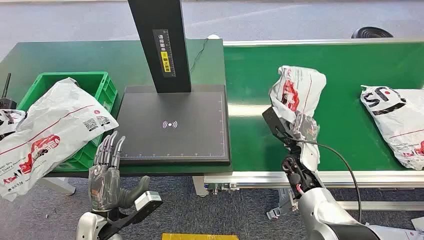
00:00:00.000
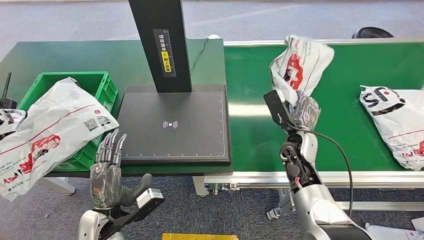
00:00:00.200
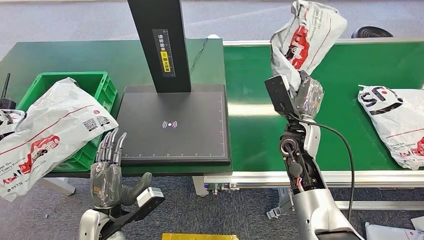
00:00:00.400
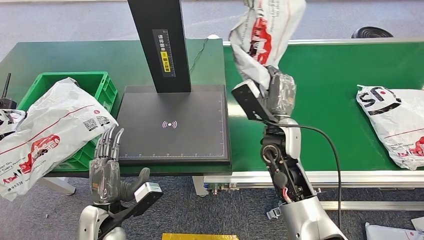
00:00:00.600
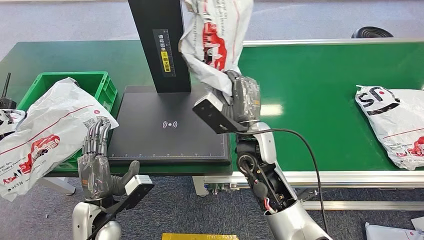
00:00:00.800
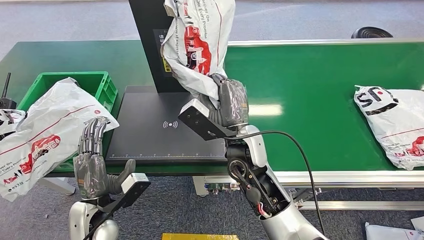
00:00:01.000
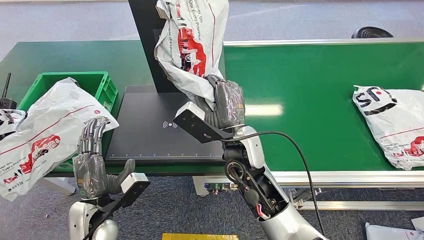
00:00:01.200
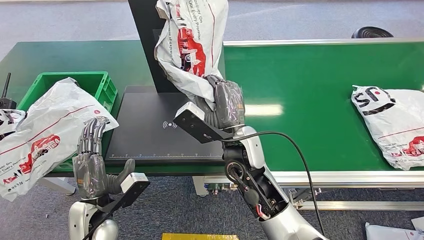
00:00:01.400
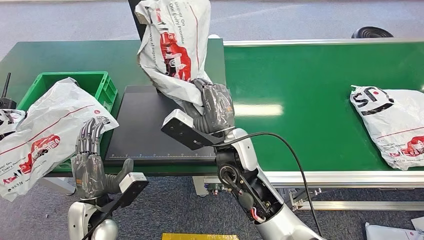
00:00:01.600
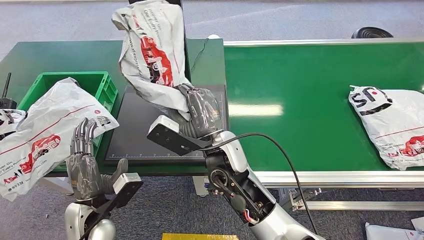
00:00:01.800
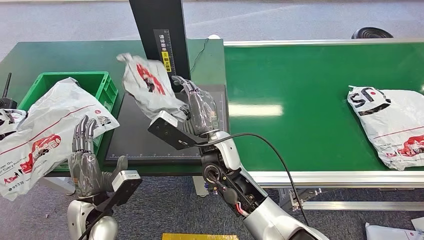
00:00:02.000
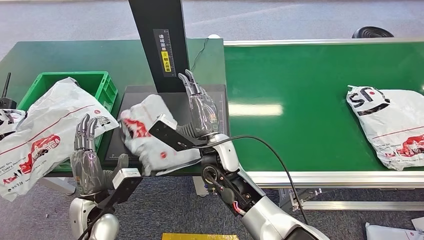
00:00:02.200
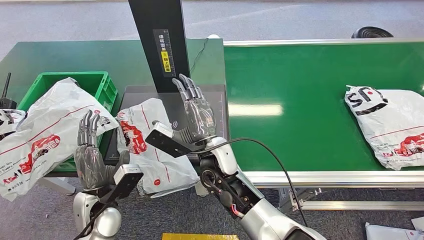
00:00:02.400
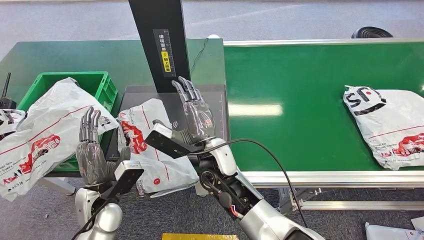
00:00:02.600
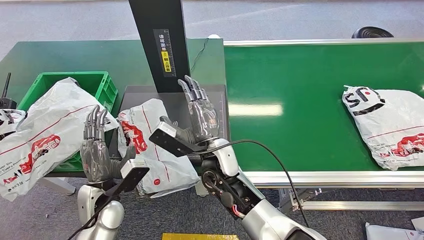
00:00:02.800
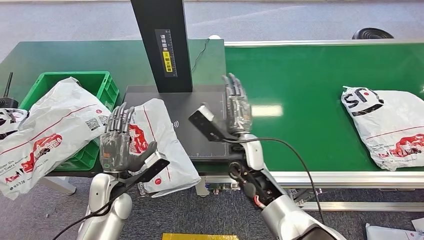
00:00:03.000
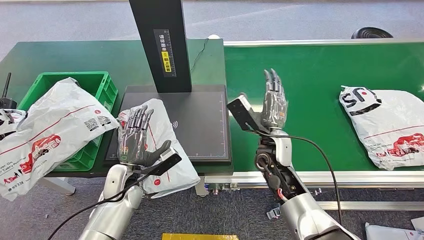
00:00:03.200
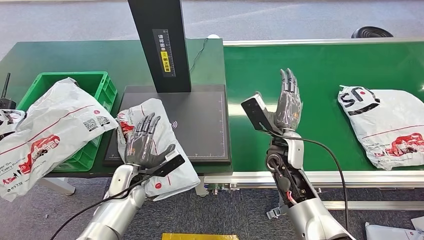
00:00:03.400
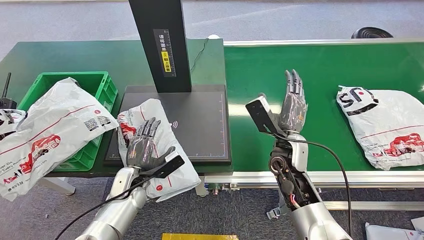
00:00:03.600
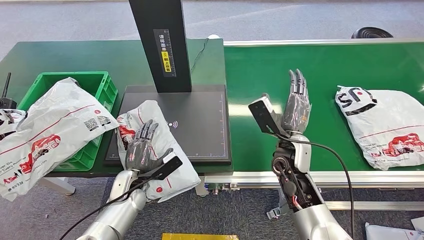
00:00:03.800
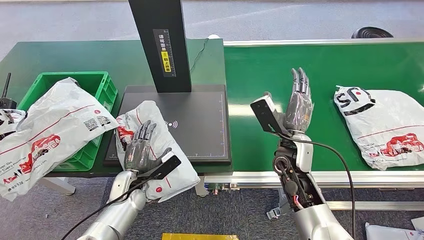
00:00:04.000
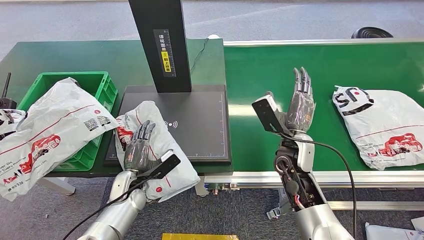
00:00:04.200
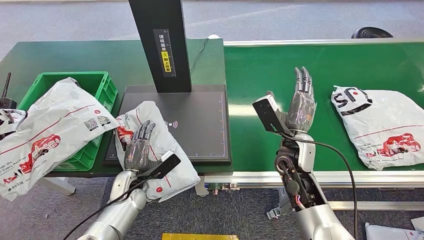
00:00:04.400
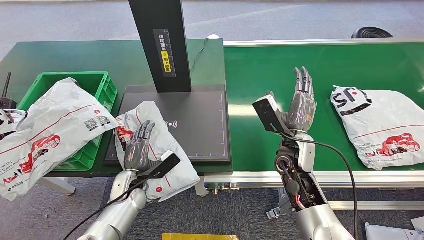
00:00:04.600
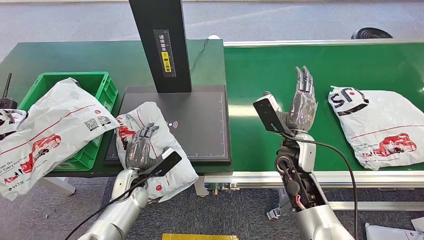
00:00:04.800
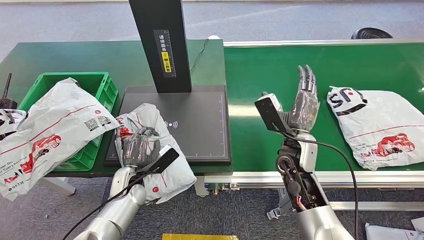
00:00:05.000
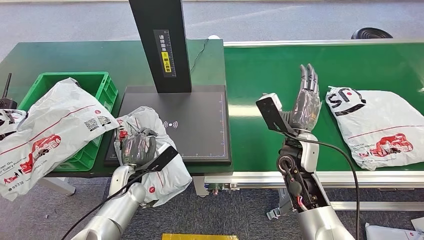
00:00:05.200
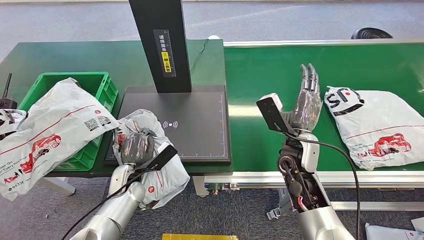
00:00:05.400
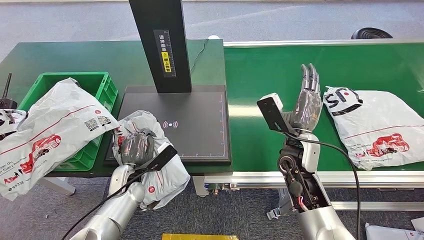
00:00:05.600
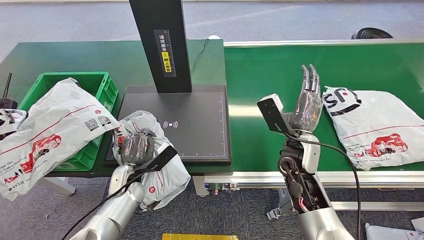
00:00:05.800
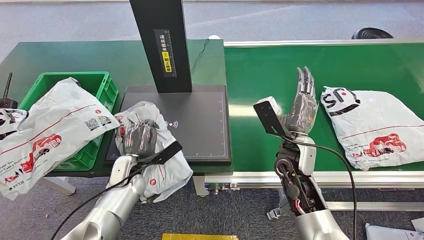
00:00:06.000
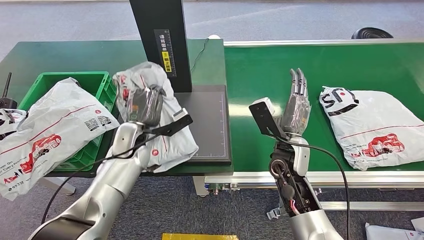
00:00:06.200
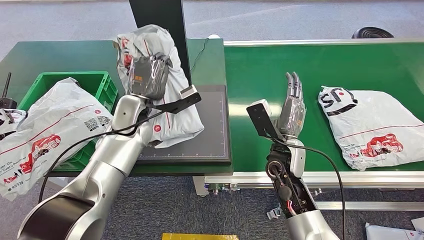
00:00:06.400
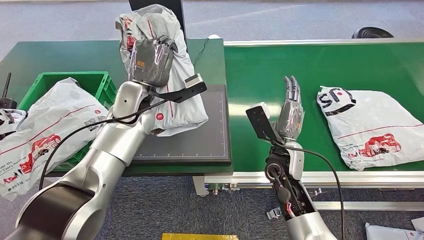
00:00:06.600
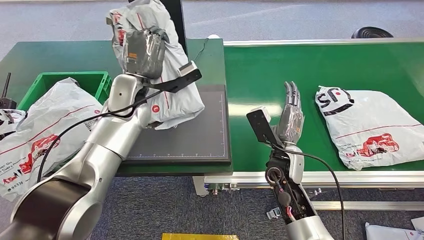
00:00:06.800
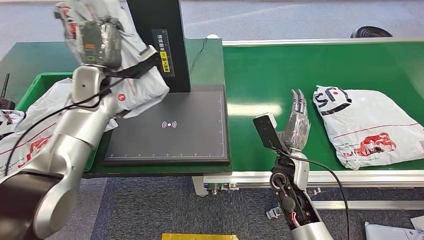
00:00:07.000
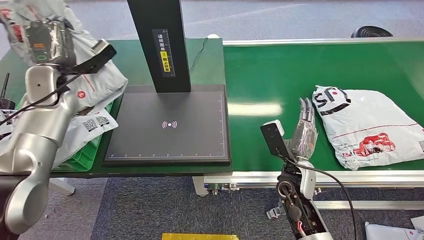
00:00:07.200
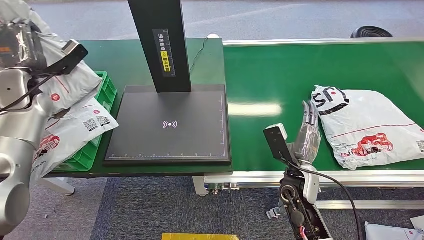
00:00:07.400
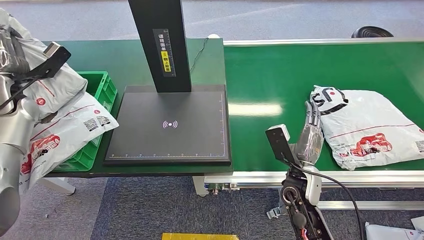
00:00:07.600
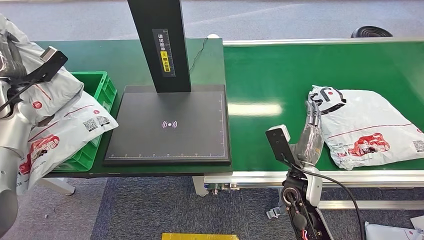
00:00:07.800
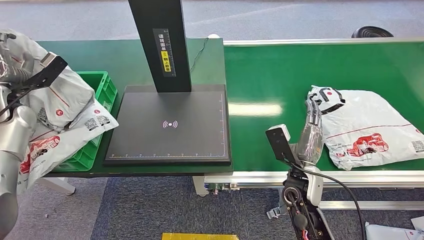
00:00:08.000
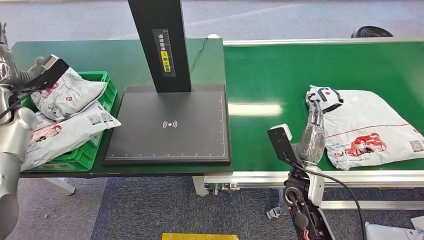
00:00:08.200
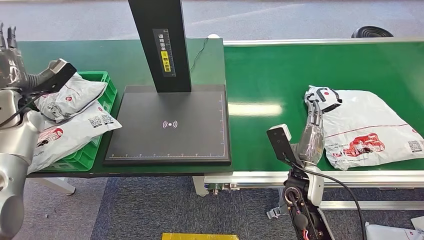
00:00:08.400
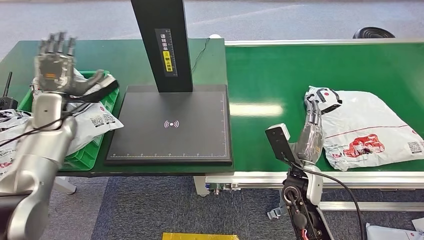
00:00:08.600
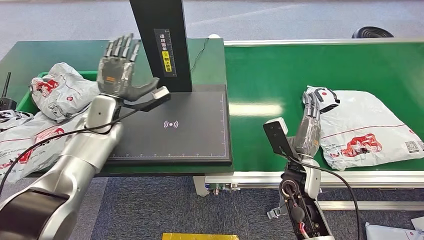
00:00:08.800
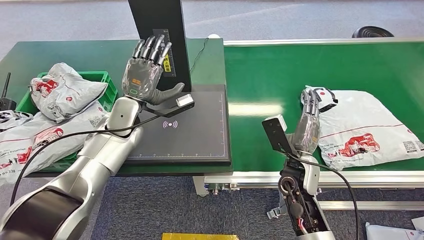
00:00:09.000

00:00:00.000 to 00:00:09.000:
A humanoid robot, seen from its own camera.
Step, 00:00:00.000 to 00:00:00.600: Pick up the package from the conveyor belt.
Step, 00:00:01.000 to 00:00:02.600: Place the package onto the inbound machine.
Step, 00:00:02.800 to 00:00:06.800: Pick up the package from the inbound machine.
Step, 00:00:07.000 to 00:00:09.000: Place the package into the parcel locker.
00:00:04.400 to 00:00:06.000: The left hand moves roughly 5 cm.
